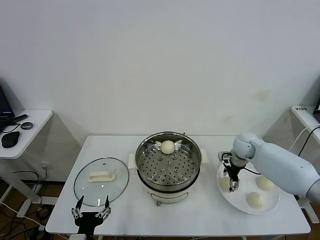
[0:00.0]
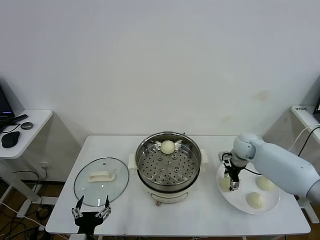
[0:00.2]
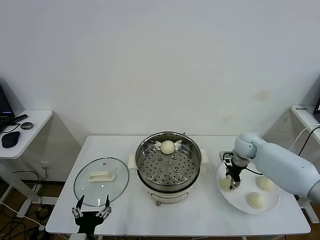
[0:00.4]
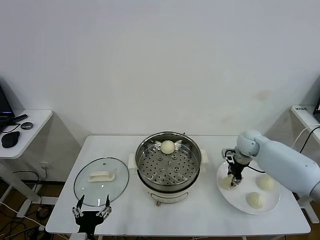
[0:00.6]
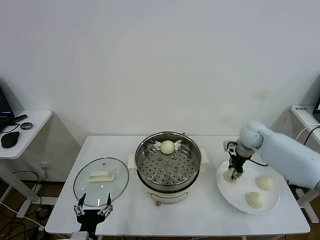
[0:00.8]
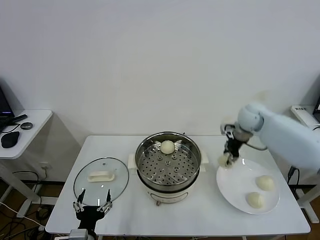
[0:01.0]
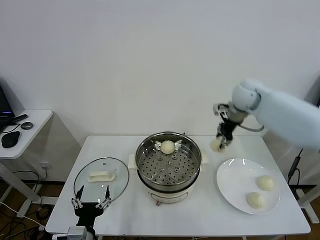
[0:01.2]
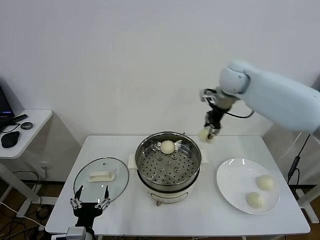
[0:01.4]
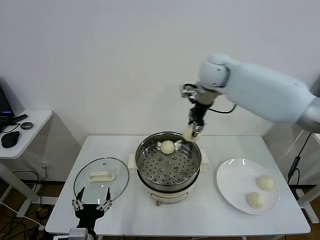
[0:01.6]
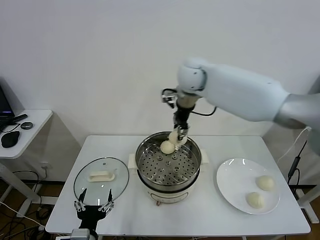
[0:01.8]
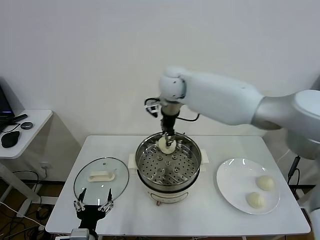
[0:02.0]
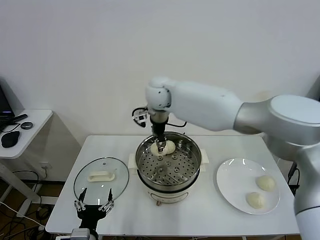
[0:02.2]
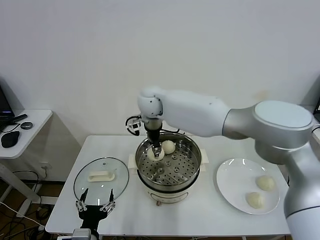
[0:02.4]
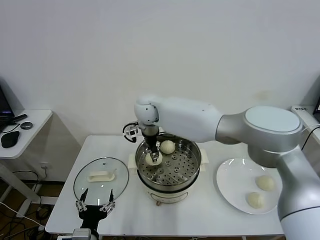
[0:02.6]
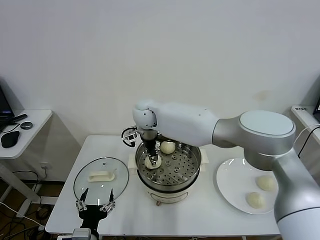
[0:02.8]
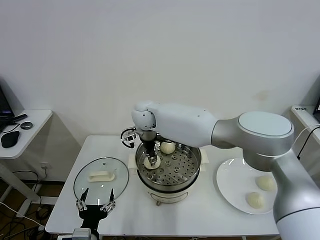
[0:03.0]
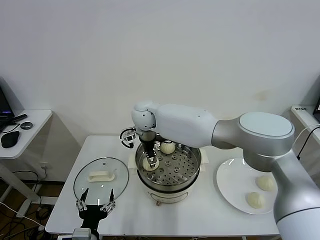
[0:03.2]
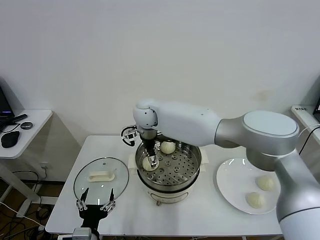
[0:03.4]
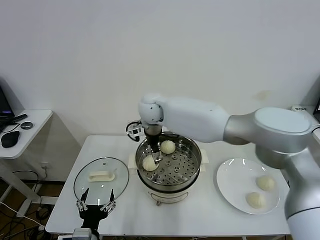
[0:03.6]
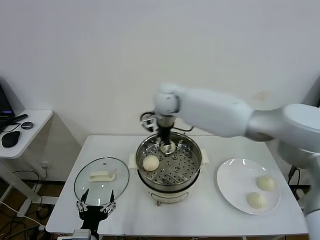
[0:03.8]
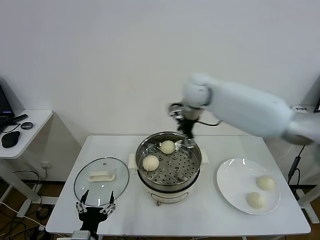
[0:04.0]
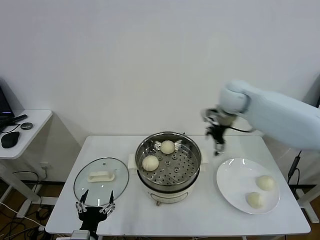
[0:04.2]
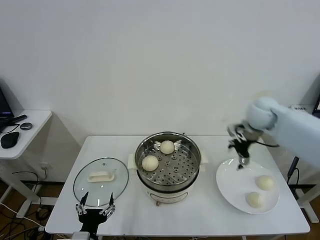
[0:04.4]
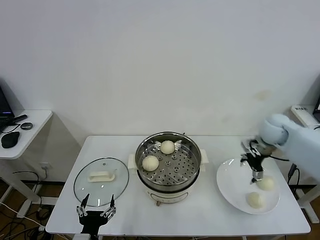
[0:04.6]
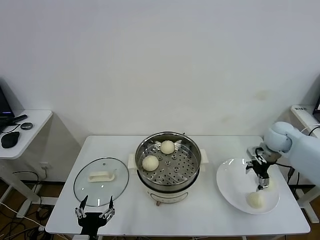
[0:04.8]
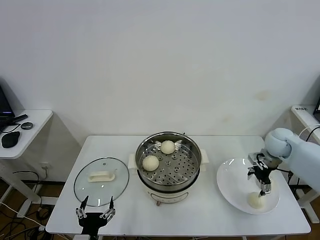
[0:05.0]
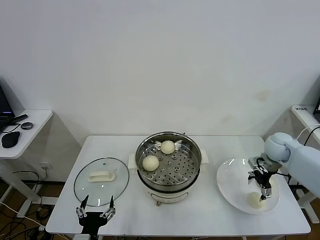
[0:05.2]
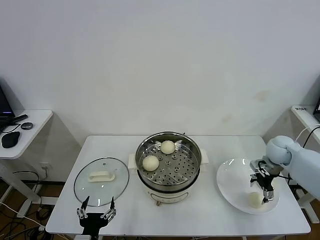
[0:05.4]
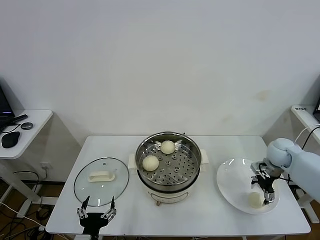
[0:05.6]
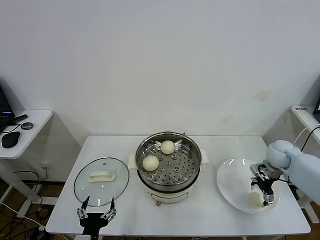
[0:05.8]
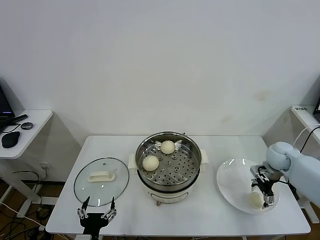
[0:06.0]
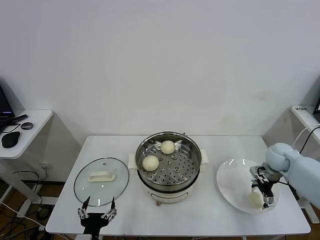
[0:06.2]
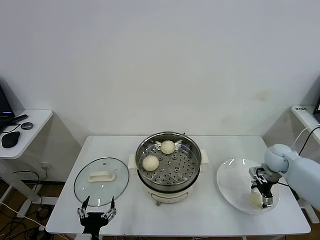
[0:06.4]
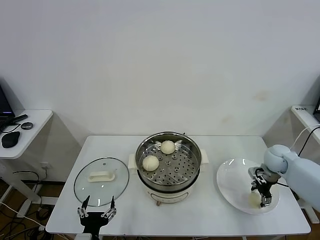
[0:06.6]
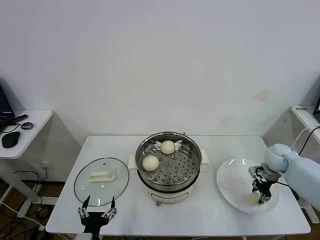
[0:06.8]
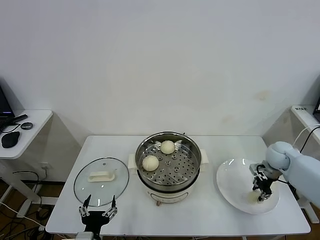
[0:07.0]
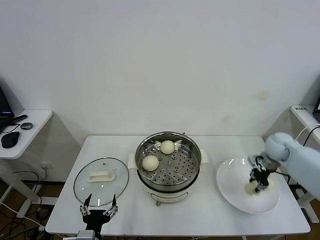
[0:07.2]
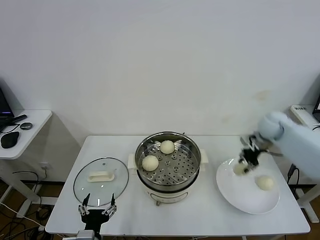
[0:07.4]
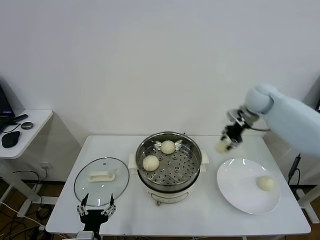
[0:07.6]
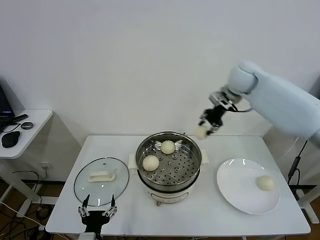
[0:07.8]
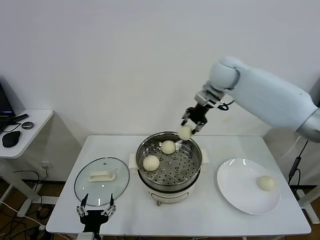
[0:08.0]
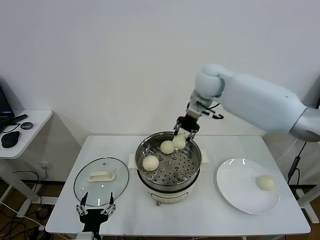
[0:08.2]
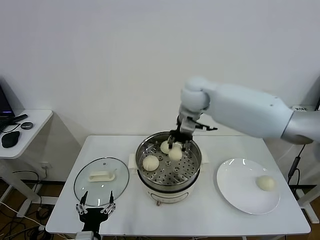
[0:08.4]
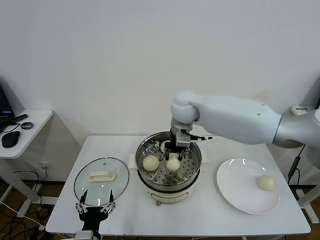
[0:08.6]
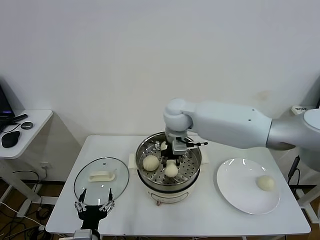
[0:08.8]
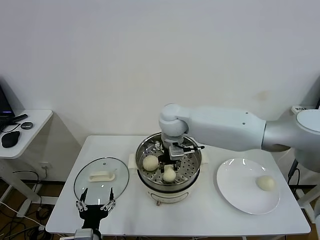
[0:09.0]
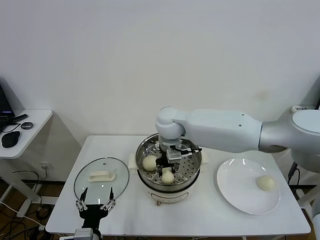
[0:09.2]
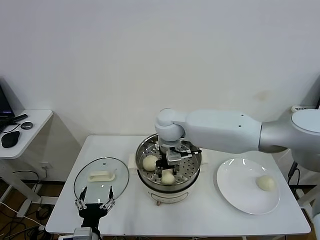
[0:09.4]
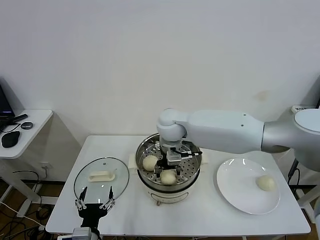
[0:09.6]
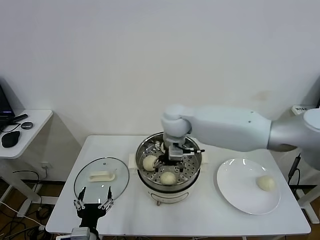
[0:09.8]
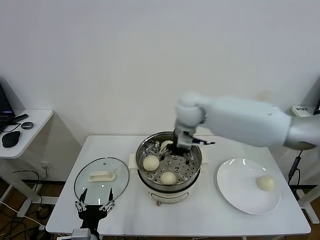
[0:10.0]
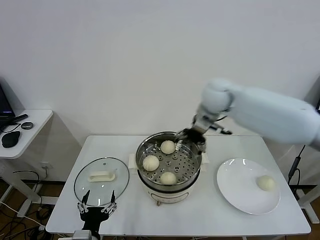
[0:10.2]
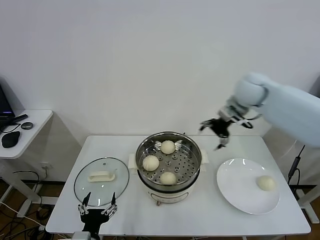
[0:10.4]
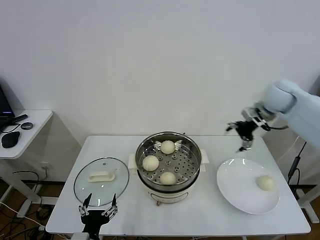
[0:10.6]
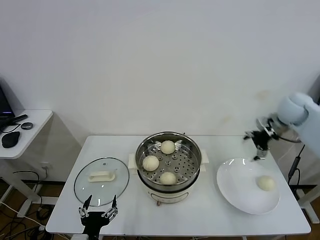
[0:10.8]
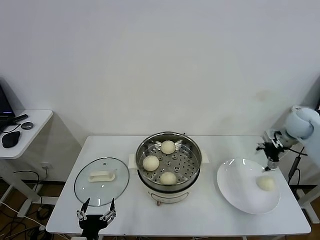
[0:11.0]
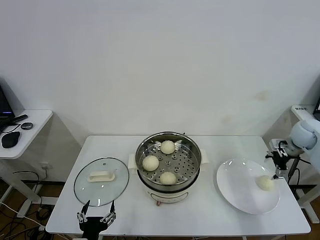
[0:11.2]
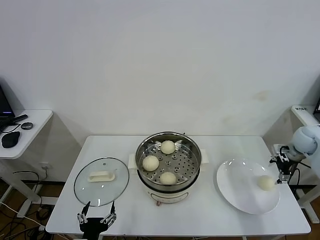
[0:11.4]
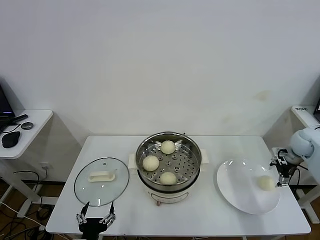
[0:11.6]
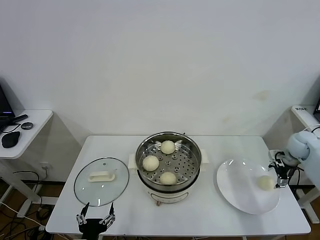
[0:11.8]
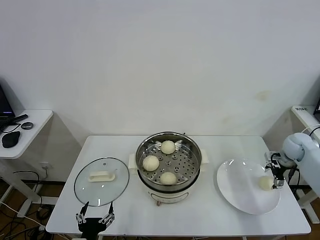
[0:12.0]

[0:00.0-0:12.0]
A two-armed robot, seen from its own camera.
Task of the whole recording: take steamed baozi put them in steamer.
Step, 0:00.6 to 0:03.4: Place the baozi on the steamer with right gripper.
Step, 0:03.6 to 0:06.6: Grasp the baozi in the plate with right gripper.
Step, 0:07.0 to 0:09.8: Place the baozi on the steamer with right gripper.
0:00.0 to 0:01.6: The right gripper shifts approximately 35 cm upward and to the left, and closes.
0:01.6 to 0:03.0: The right gripper goes some 25 cm to the left and downward.
0:03.0 to 0:04.4: The right gripper goes about 40 cm to the right, and opens its fingers.
0:04.4 to 0:06.0: The right gripper travels downward and to the right by some 20 cm.
0:06.0 to 0:07.6: The right gripper moves upward, to the left and forward, about 25 cm, and closes.
0:07.6 to 0:09.0: The right gripper goes some 30 cm to the left.
0:09.0 to 0:10.4: The right gripper shifts some 25 cm to the right, and opens its fingers.
0:10.4 to 0:12.0: The right gripper goes roughly 30 cm to the right and downward.

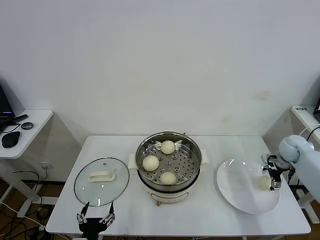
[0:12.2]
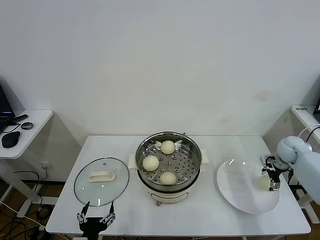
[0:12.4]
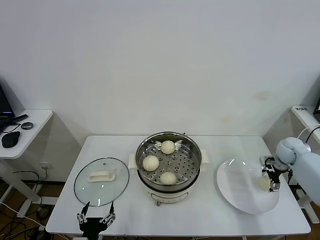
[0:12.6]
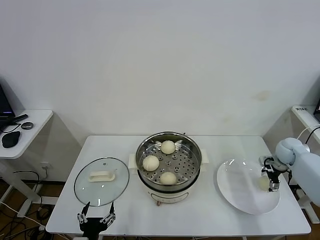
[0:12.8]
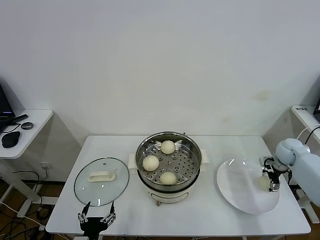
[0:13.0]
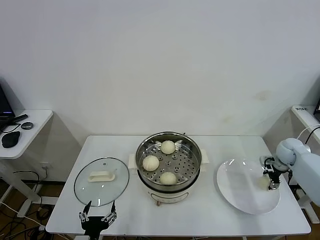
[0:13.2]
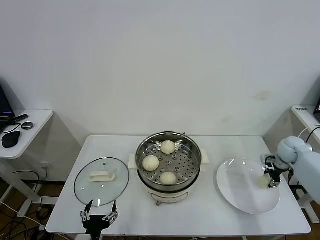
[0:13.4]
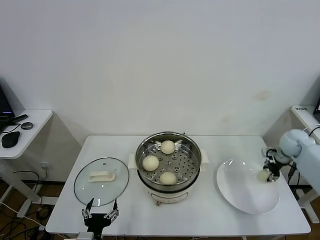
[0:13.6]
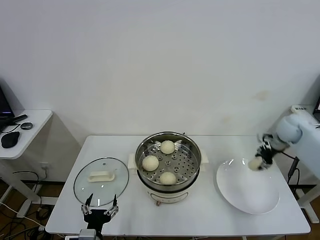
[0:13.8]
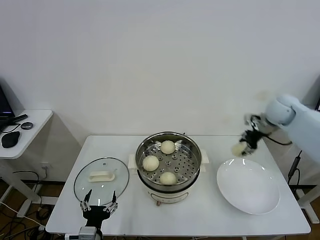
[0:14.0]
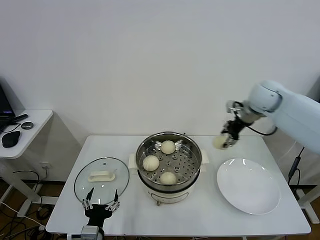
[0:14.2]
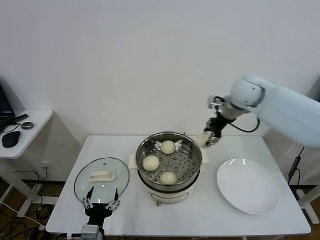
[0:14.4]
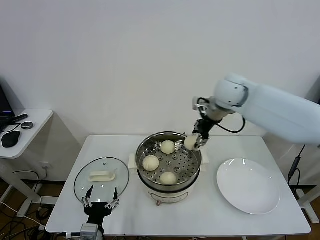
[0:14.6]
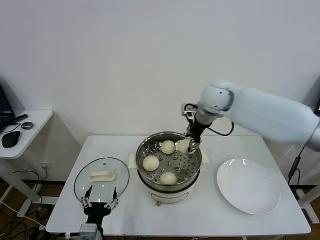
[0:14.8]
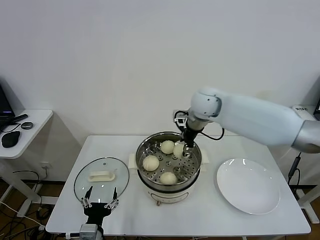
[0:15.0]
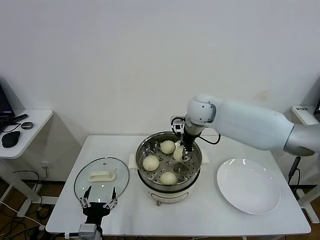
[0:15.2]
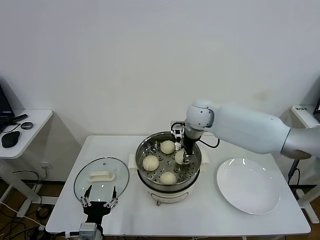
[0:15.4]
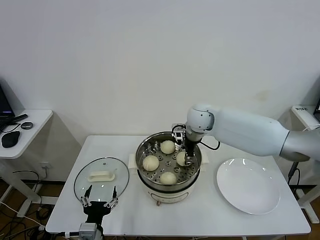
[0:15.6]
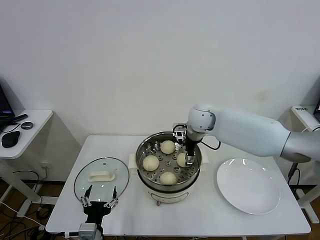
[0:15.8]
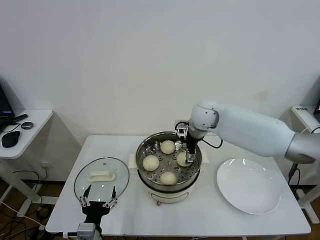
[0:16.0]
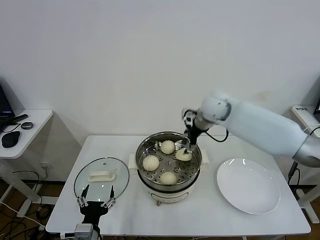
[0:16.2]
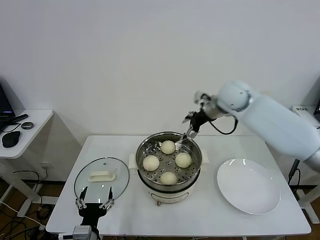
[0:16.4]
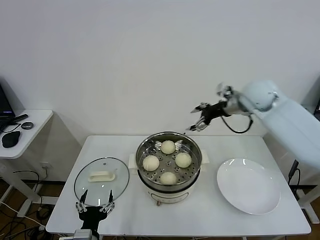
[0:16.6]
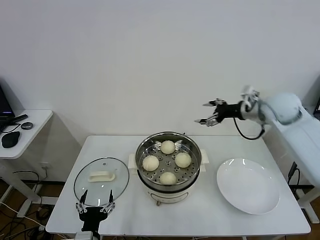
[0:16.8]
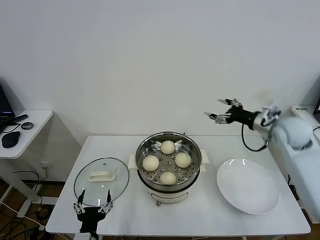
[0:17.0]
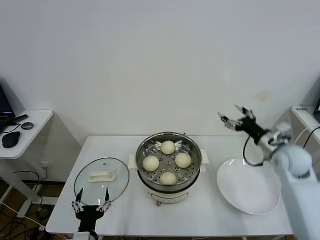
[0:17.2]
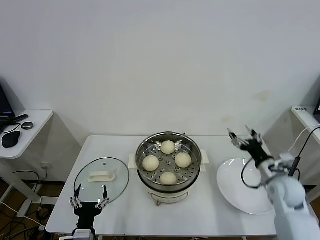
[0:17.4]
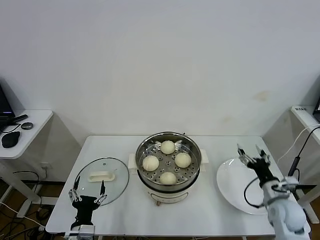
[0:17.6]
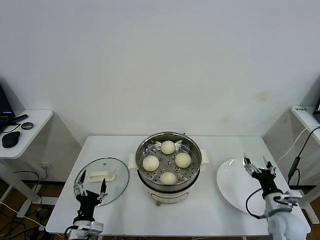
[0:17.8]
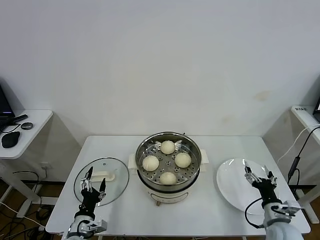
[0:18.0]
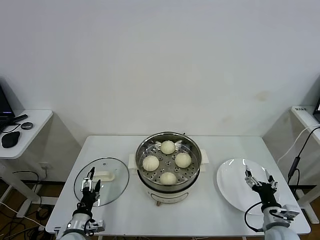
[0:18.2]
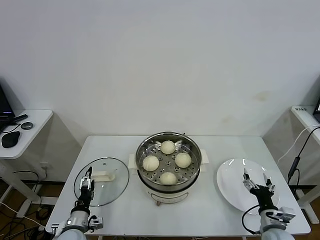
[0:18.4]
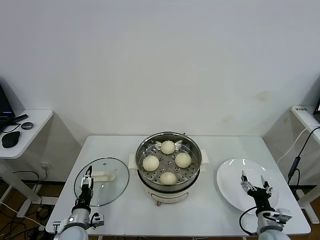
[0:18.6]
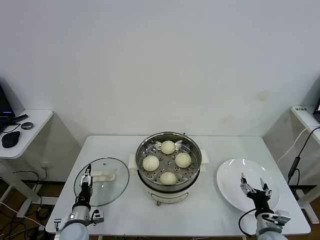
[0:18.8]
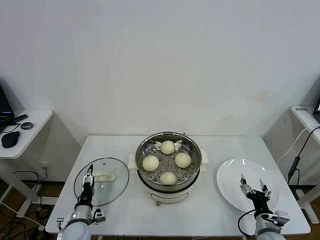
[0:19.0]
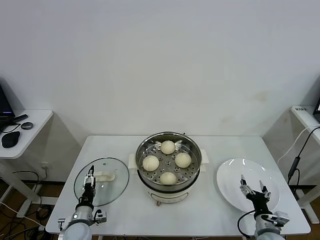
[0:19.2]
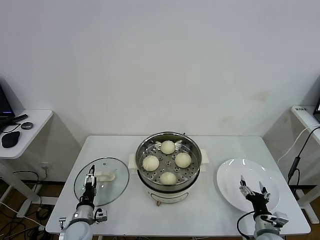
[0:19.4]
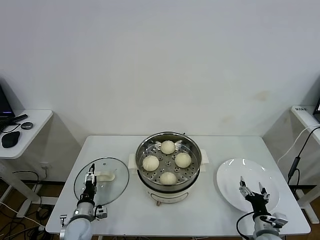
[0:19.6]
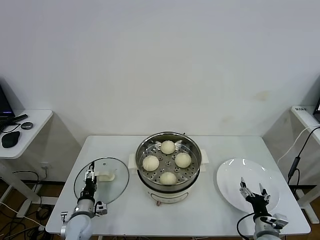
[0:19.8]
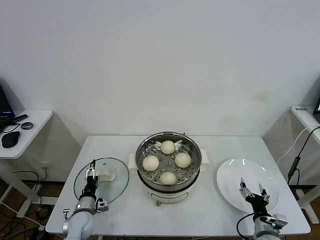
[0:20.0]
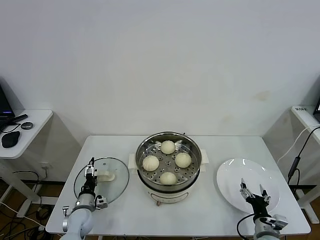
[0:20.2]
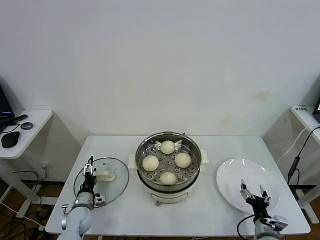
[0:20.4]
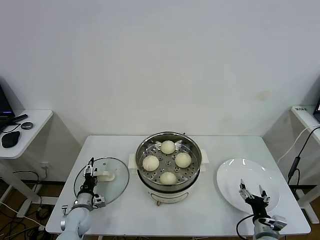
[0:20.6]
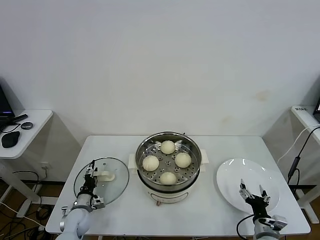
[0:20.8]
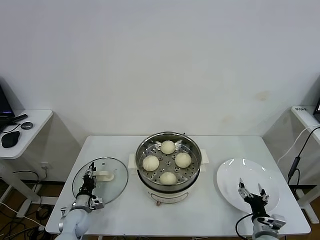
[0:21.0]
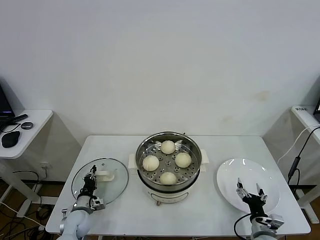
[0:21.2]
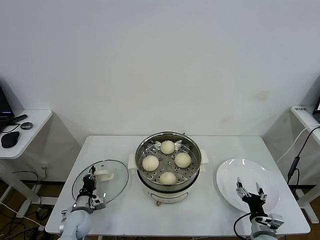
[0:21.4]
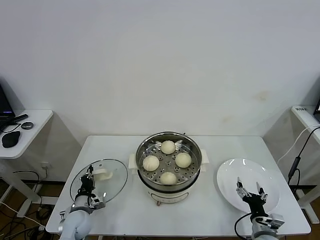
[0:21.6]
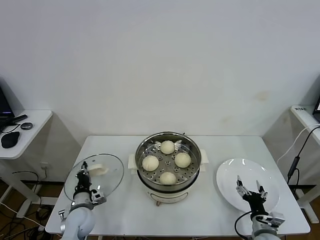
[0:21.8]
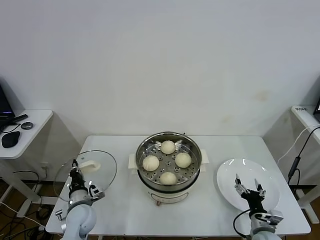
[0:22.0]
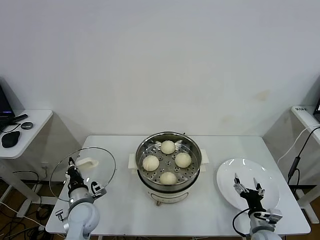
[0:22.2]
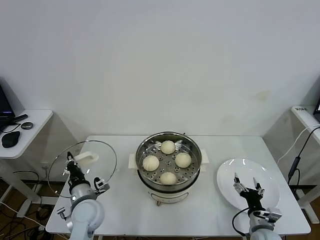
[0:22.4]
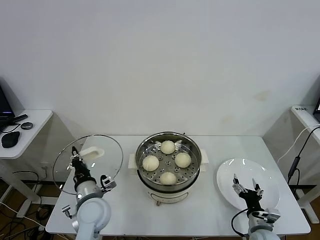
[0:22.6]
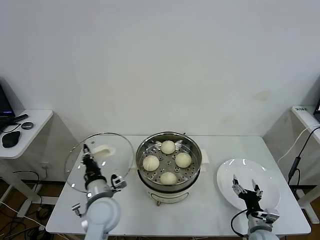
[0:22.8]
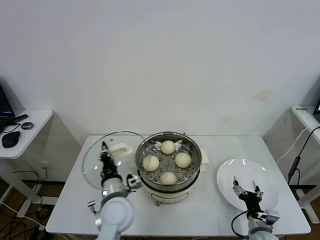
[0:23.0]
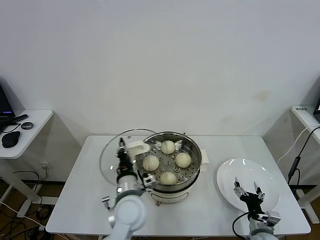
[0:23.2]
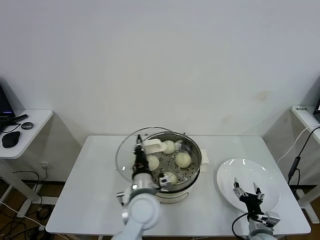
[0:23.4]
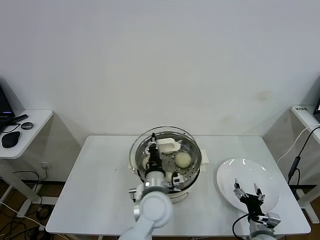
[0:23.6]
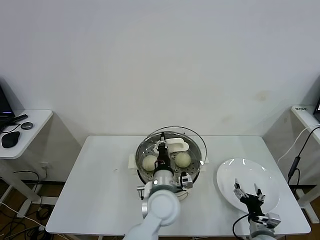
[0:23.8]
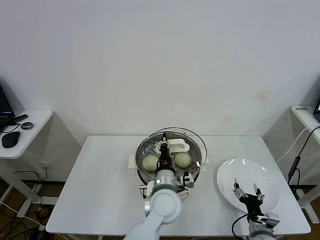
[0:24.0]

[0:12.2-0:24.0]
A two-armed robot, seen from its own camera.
Task of the whole recording: take steamed baozi put them in steamer.
Step, 0:13.6 to 0:16.2: Place the baozi on the steamer with right gripper.
Step, 0:16.4 to 0:21.4: Grasp the pot lid with left gripper.
0:12.2 to 0:13.6: The right gripper closes its fingers.
0:13.6 to 0:15.2: The right gripper heads to the left, covering about 35 cm.
0:15.2 to 0:16.6: The right gripper moves to the right, some 15 cm, and opens up.
0:16.6 to 0:18.2: The left gripper shifts about 15 cm forward, downward and to the left; the right gripper shifts about 50 cm downward and backward.
0:18.2 to 0:19.6: The left gripper heads forward, covering roughly 5 cm; the right gripper moves some 5 cm.
0:19.6 to 0:21.0: The left gripper moves some 5 cm, and closes.
0:21.0 to 0:22.6: The left gripper goes about 20 cm upward and to the right, and closes up.
0:22.6 to 0:24.0: The left gripper goes some 20 cm to the right.
